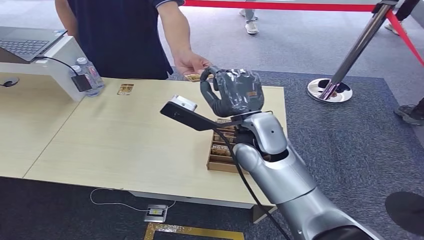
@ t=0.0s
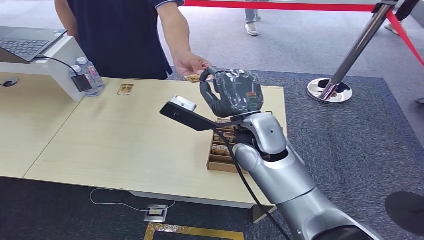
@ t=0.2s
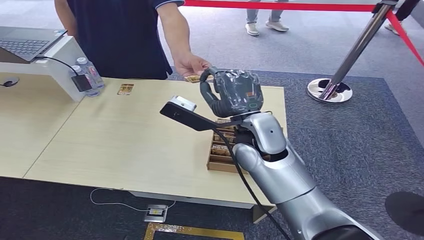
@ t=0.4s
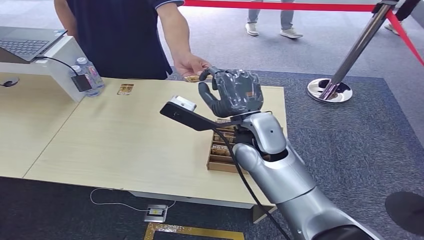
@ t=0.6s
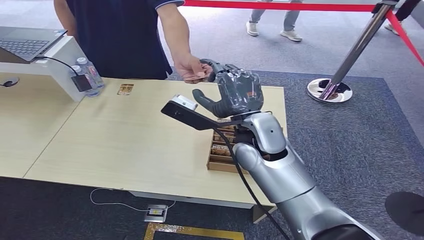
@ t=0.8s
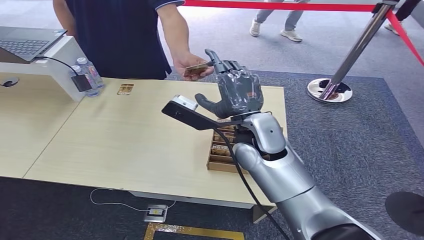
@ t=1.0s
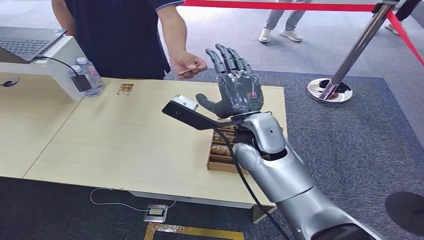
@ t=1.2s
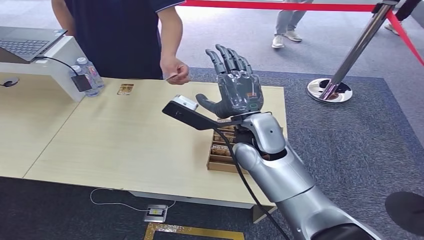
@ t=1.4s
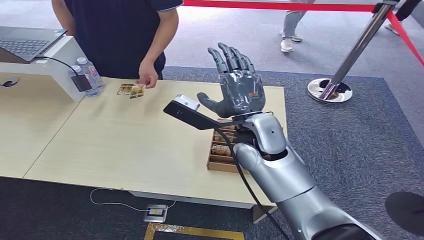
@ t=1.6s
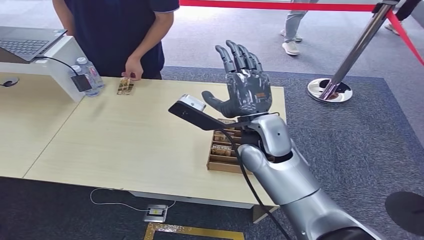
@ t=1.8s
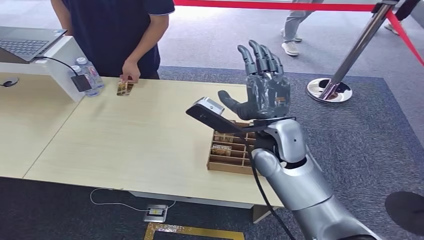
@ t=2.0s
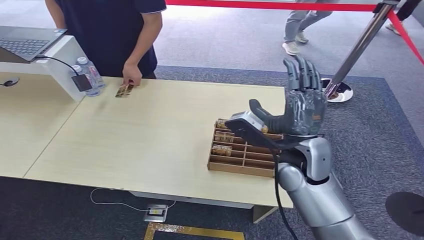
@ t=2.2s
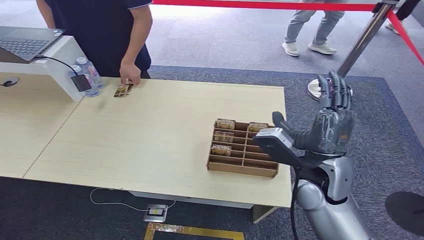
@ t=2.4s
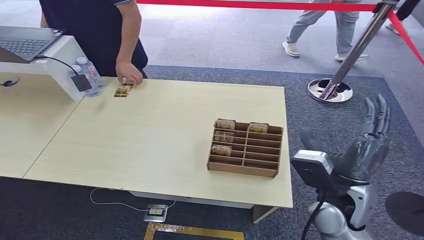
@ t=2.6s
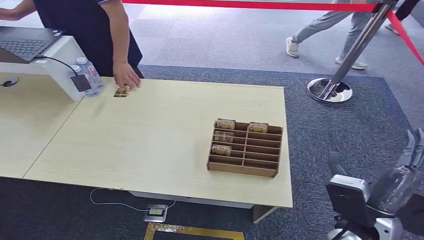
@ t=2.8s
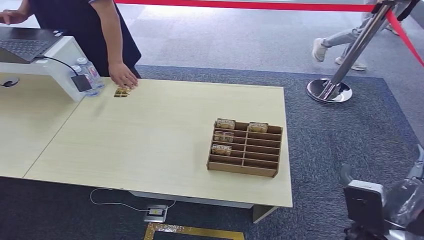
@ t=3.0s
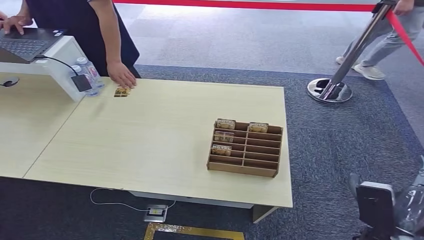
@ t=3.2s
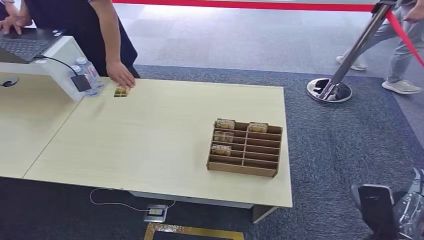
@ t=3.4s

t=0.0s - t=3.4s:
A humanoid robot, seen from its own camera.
Step, t=0.0s - t=3.2s: Hand the room card to the target.
t=0.0s - t=1.6s: Both hands stay put.
